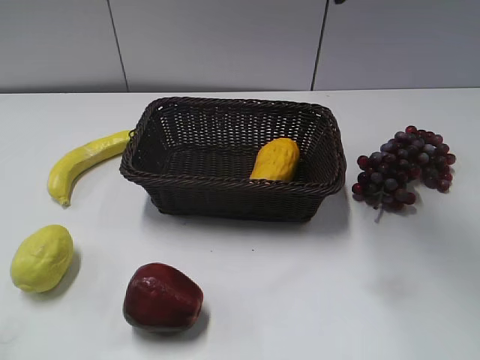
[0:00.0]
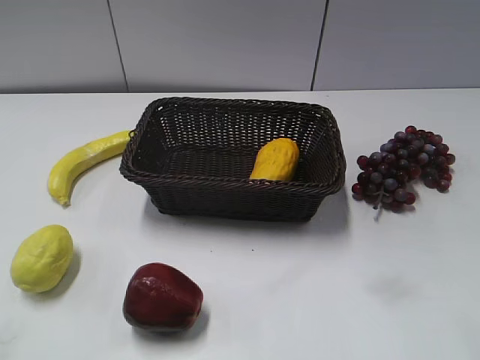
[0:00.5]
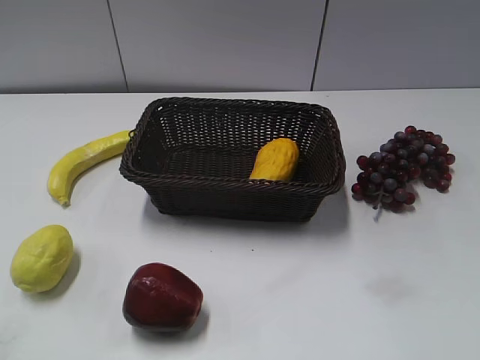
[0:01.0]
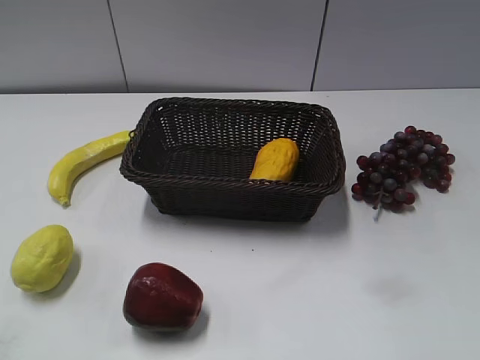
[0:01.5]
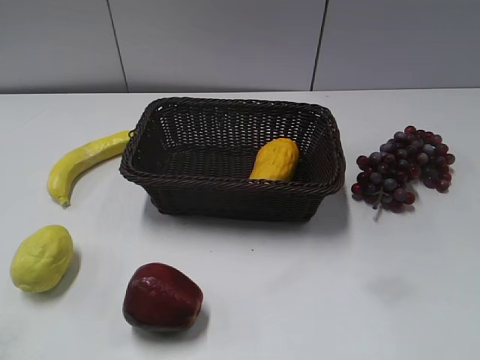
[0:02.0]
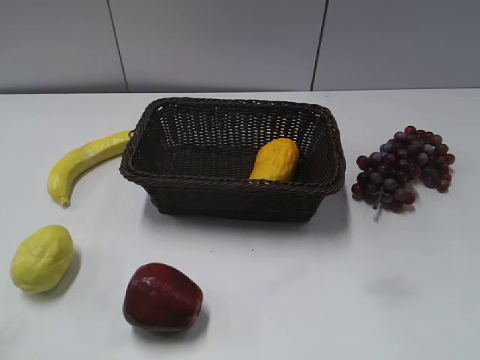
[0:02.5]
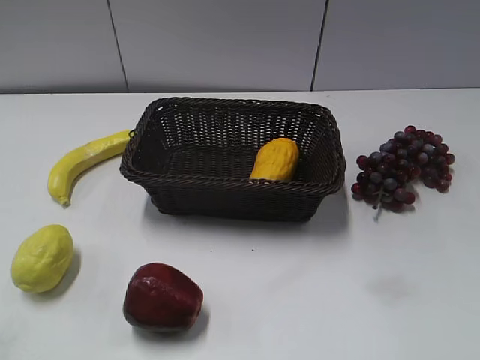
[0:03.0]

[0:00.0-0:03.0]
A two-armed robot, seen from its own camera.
0:00.0 to 0:01.5: The right gripper is displaced backward and to the right by approximately 35 cm, and closes.
